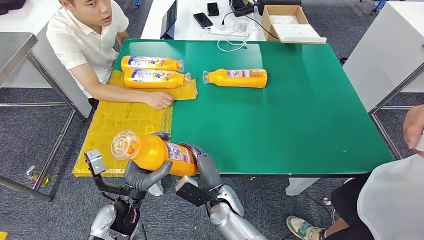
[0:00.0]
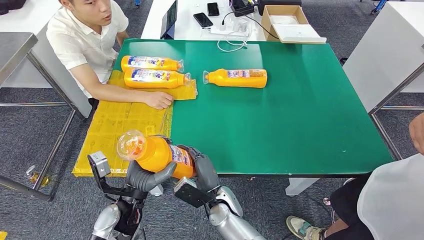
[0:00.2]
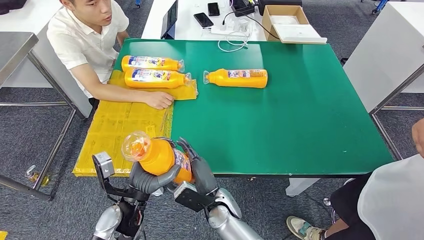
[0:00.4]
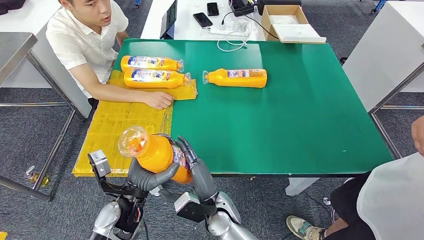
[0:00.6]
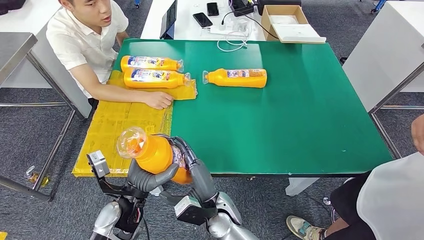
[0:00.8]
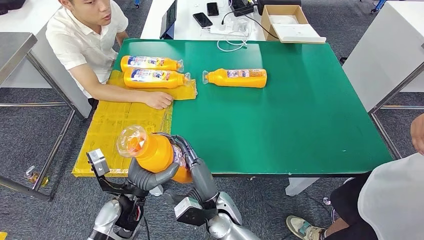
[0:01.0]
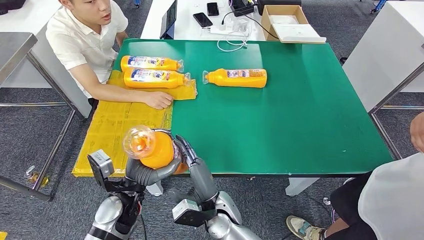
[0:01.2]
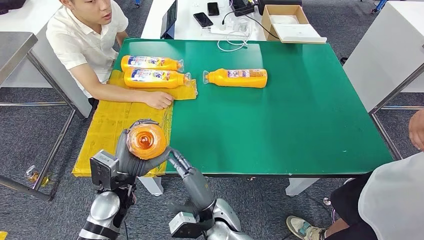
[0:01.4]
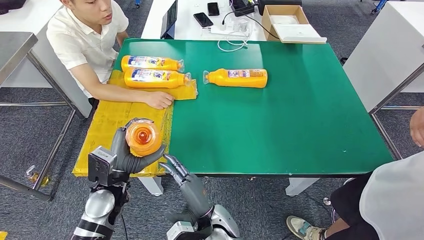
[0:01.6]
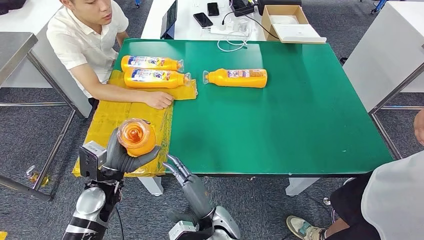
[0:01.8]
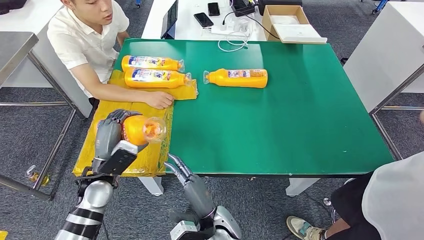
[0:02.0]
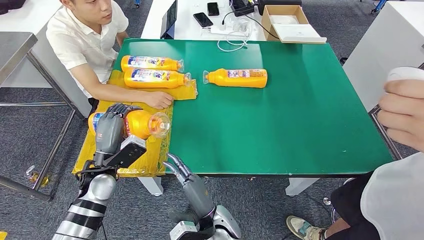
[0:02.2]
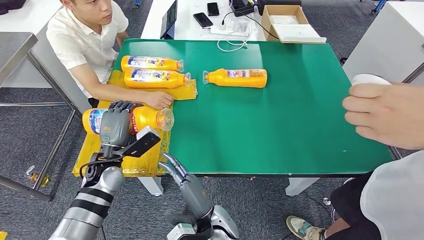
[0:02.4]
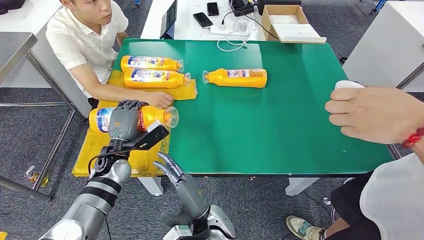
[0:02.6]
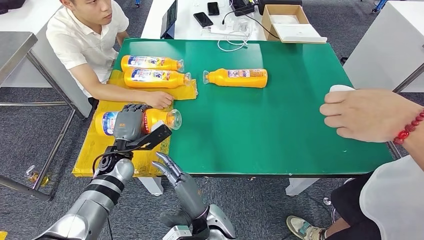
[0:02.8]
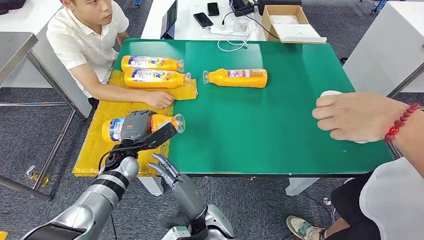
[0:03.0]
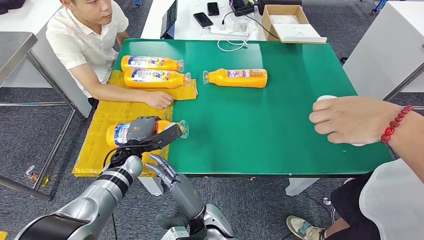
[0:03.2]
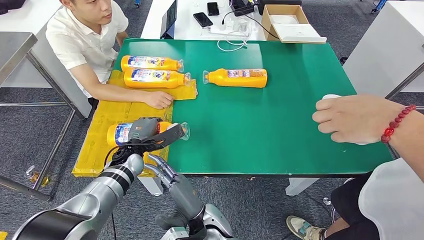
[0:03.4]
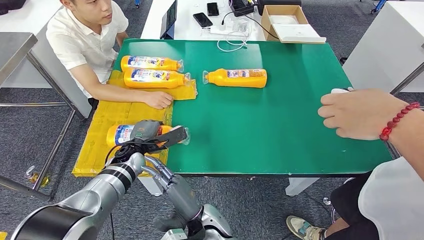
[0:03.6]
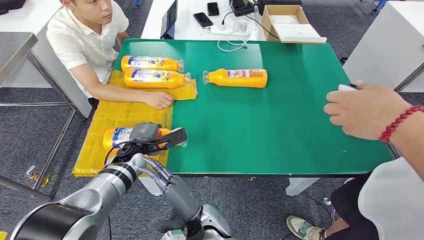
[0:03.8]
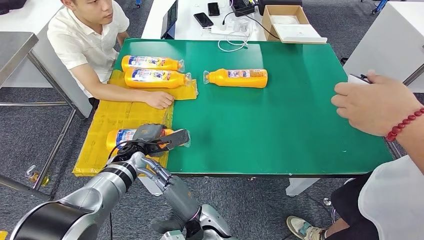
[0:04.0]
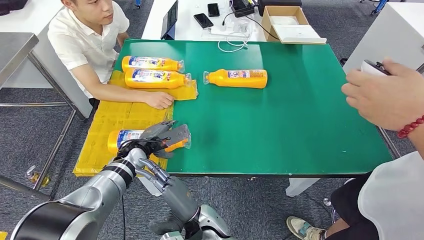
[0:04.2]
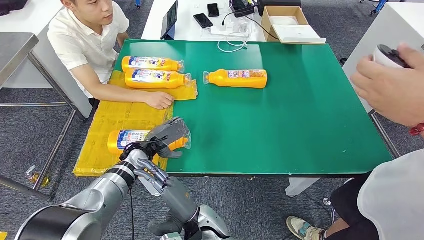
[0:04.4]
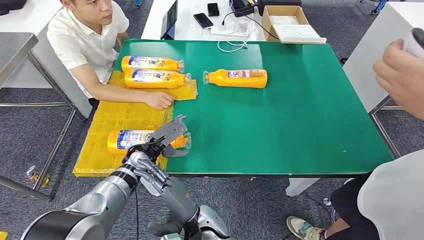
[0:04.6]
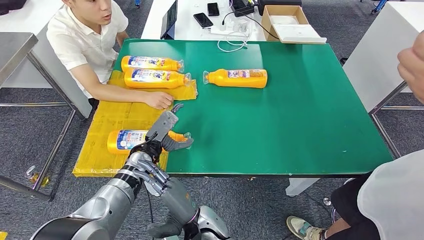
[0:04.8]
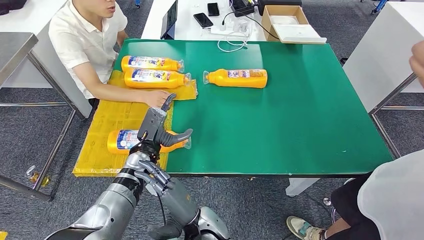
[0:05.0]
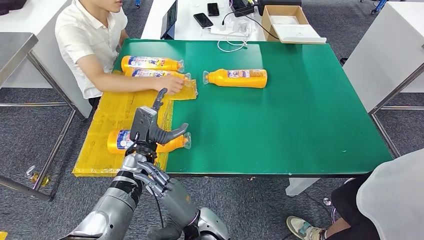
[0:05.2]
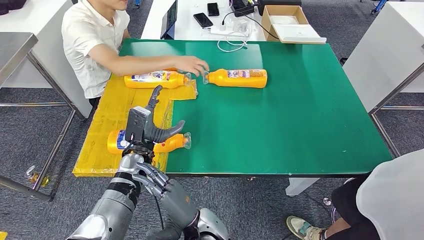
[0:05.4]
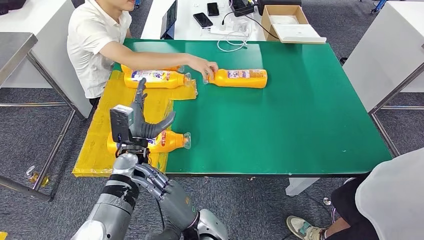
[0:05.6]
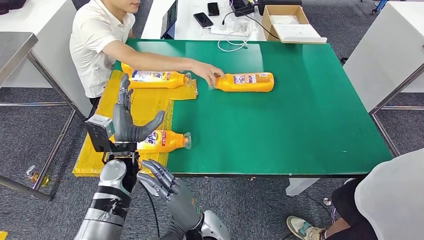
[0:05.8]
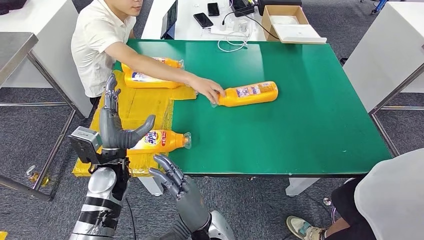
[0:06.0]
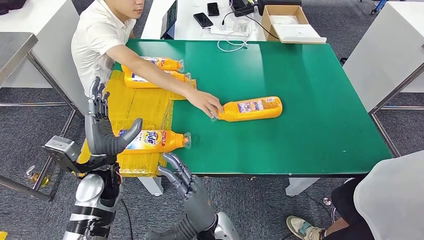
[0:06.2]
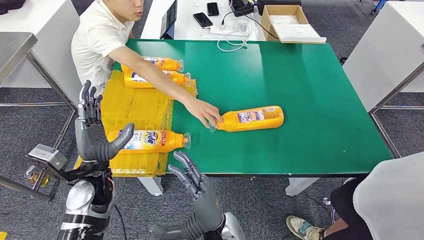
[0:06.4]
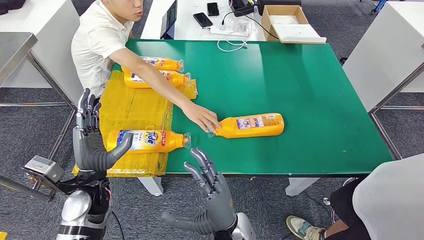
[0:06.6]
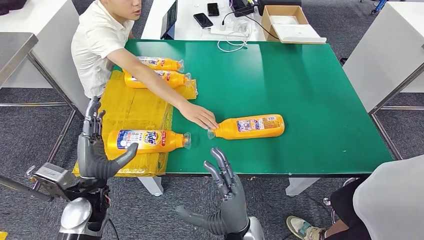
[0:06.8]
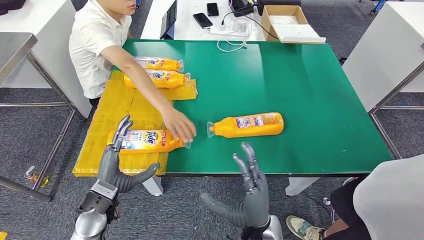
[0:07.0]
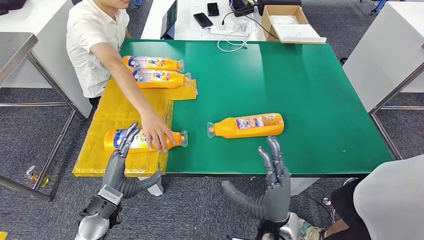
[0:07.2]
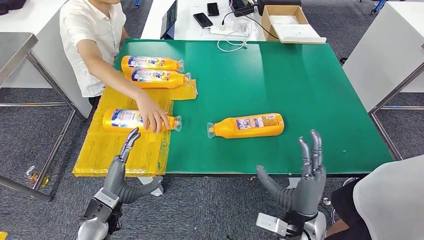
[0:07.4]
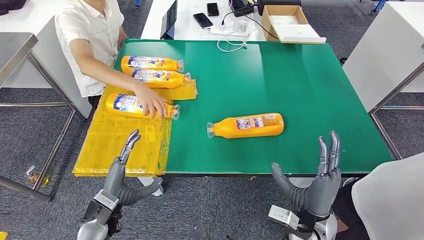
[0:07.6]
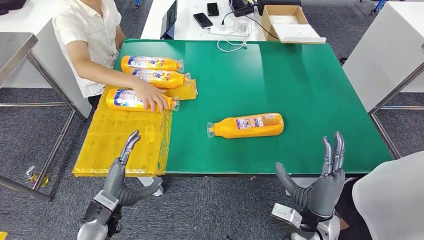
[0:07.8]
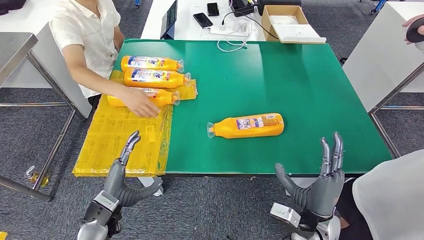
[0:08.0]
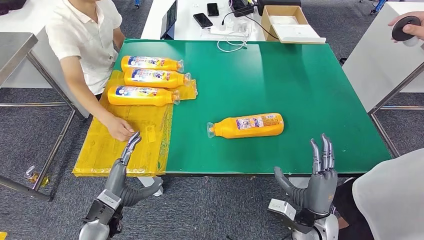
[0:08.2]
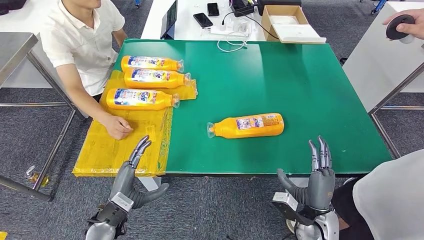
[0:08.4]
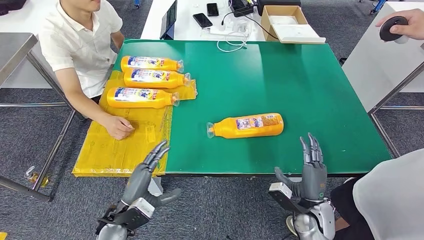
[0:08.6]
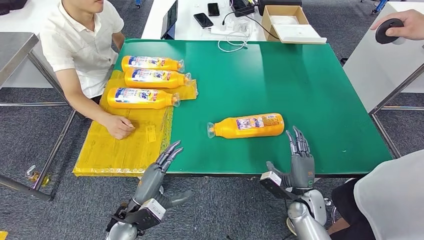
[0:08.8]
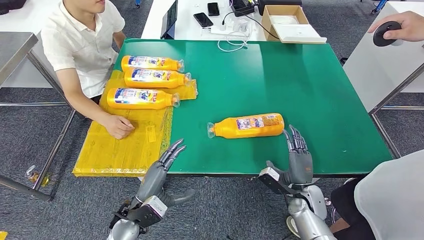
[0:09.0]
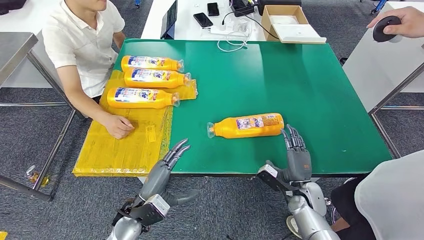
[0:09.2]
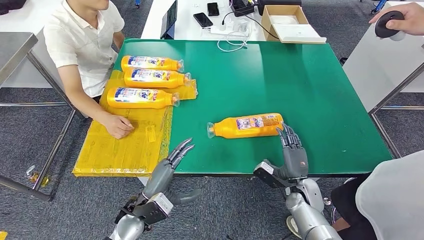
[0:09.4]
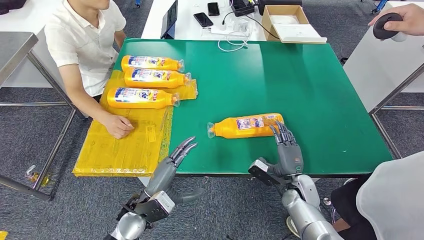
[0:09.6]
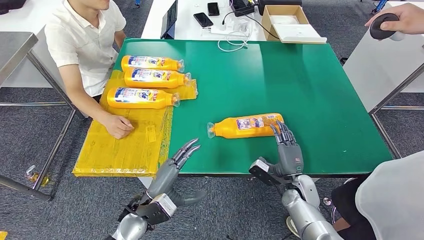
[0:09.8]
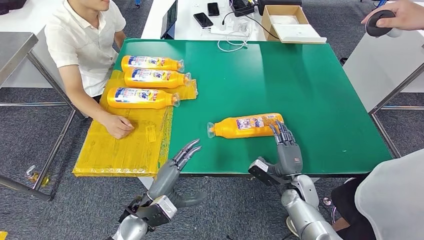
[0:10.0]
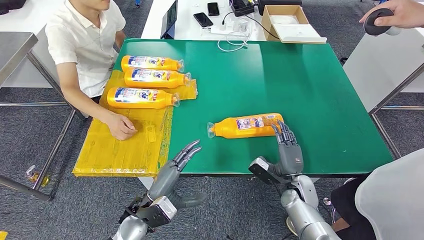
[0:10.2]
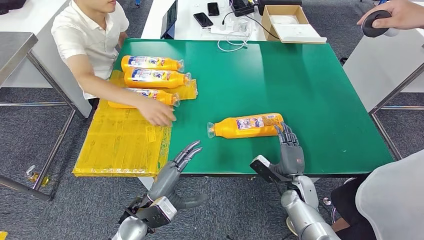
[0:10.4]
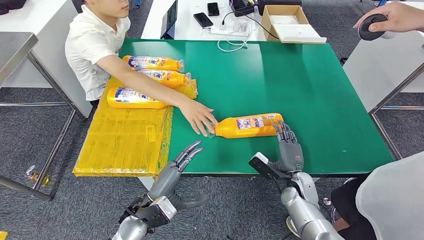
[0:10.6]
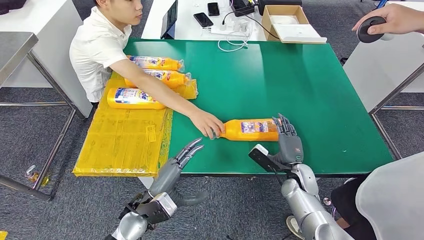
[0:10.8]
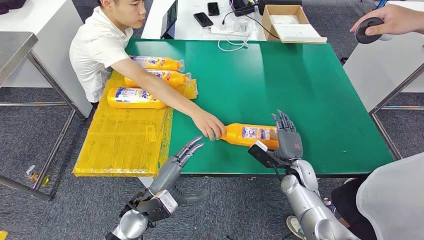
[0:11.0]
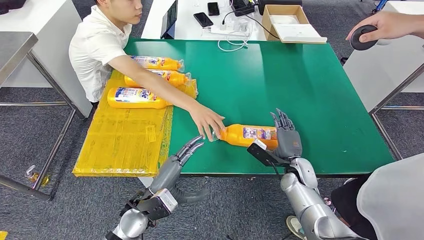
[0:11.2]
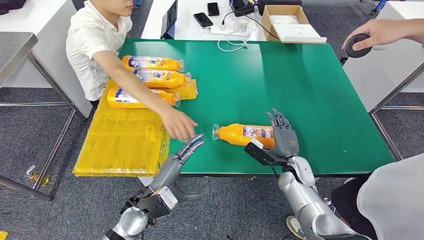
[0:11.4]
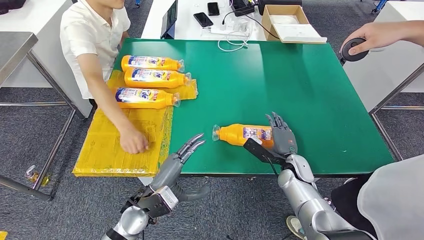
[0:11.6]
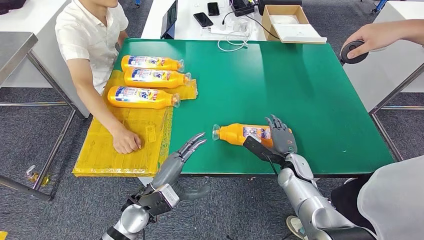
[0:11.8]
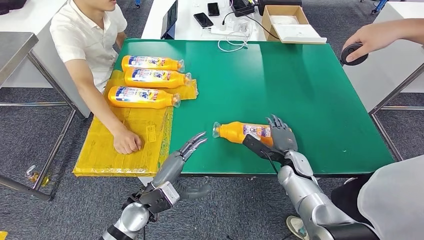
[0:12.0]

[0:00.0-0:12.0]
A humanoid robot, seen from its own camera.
Step, 0:00.0 to 0:05.6: Flip the bottle to face forward.
0:00.0 to 0:01.6: The right hand shifts roughly 5 cm backward, while the left hand moves some 5 cm.
0:01.6 to 0:03.0: The left hand heads forward, covering some 10 cm.
0:07.6 to 0:09.0: The left hand moves to the right, approximately 5 cm. The right hand shifts roughly 15 cm downward, forward and to the right.
0:09.0 to 0:10.4: The hands move only a little.
0:10.4 to 0:12.0: The right hand goes some 5 cm forward.

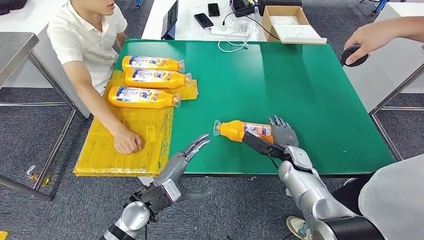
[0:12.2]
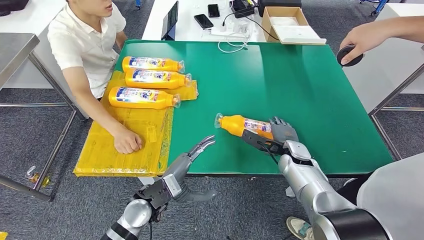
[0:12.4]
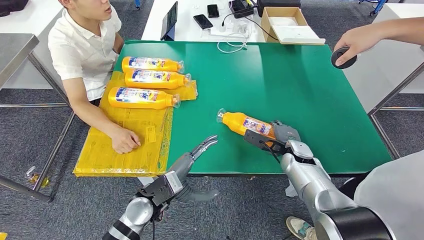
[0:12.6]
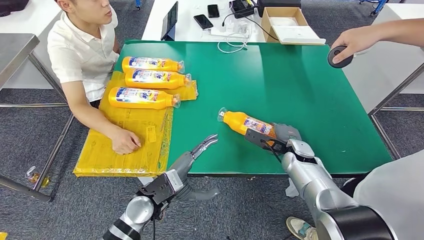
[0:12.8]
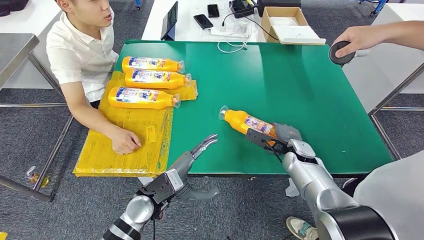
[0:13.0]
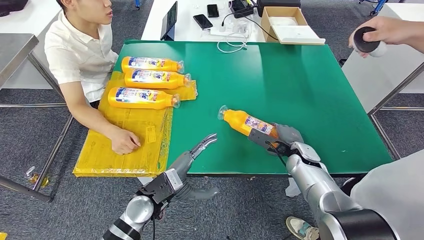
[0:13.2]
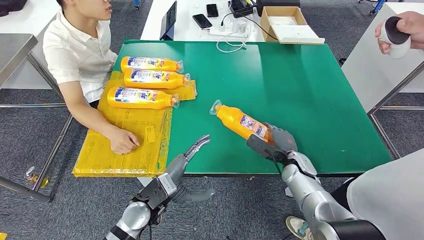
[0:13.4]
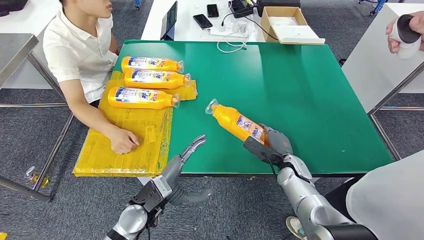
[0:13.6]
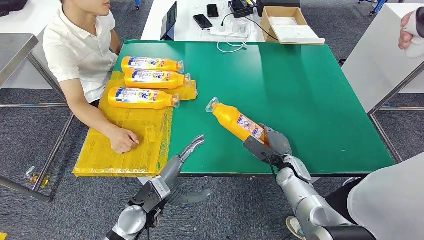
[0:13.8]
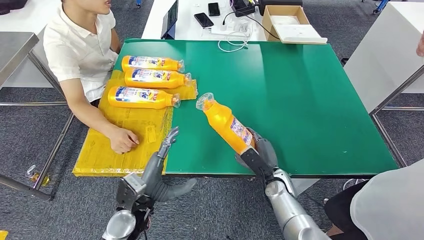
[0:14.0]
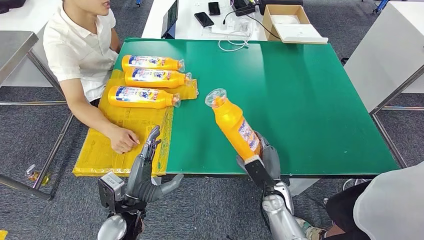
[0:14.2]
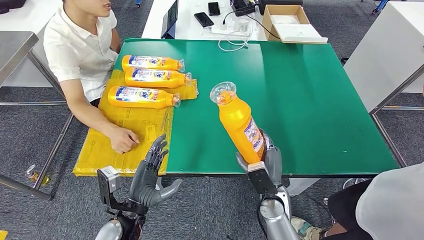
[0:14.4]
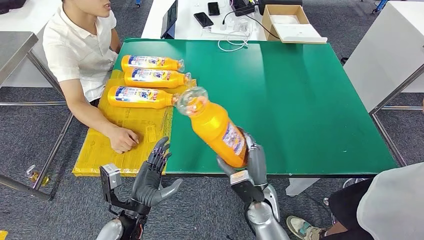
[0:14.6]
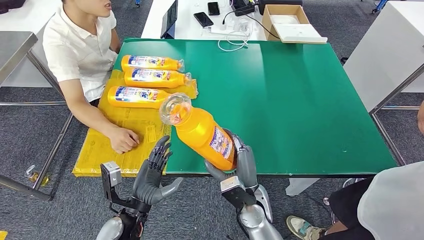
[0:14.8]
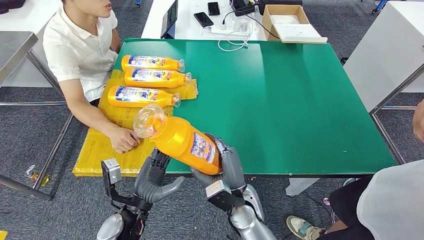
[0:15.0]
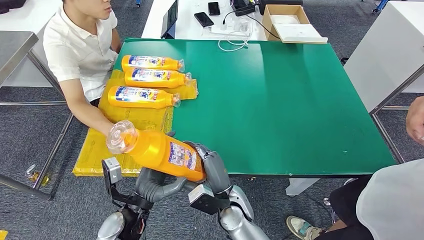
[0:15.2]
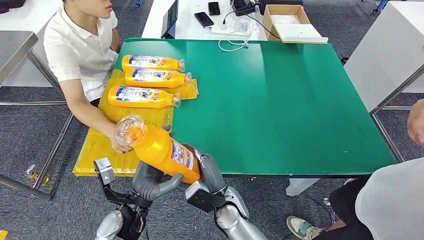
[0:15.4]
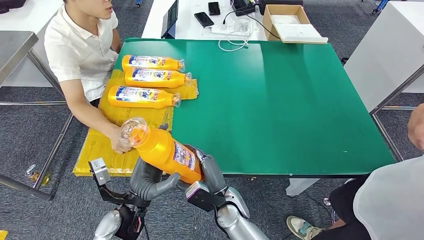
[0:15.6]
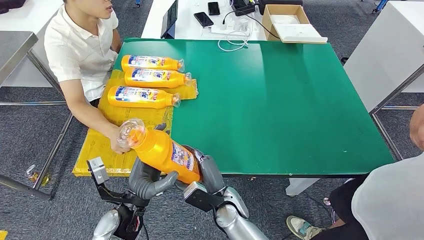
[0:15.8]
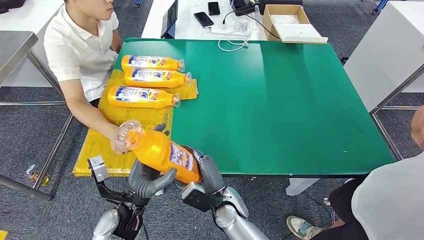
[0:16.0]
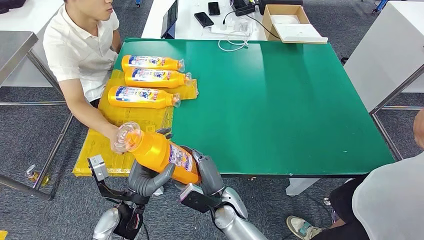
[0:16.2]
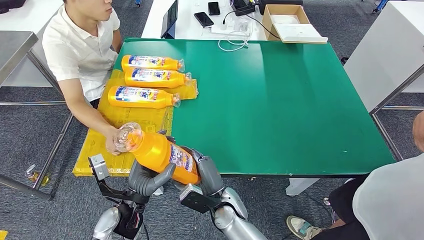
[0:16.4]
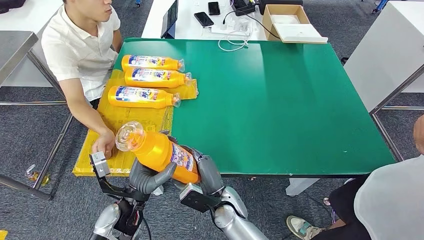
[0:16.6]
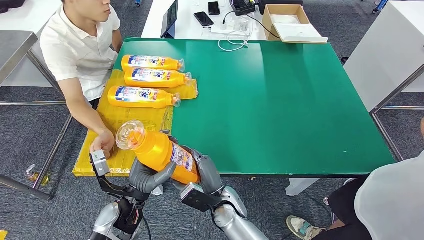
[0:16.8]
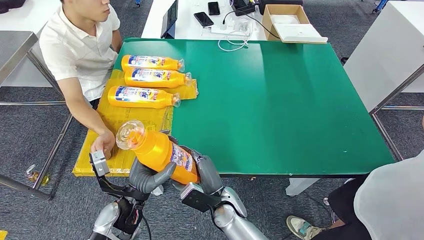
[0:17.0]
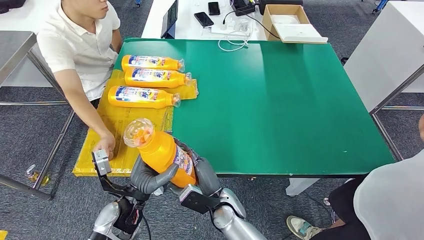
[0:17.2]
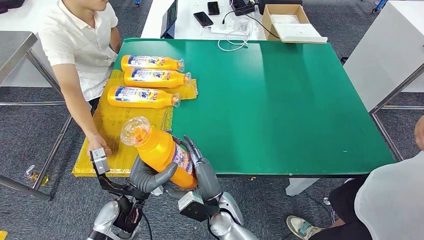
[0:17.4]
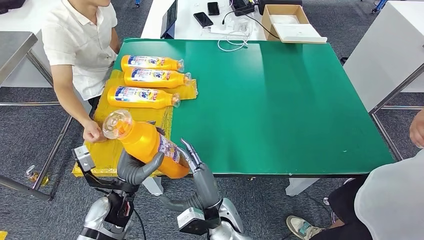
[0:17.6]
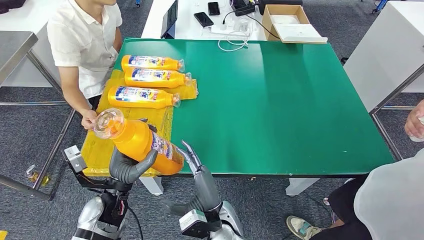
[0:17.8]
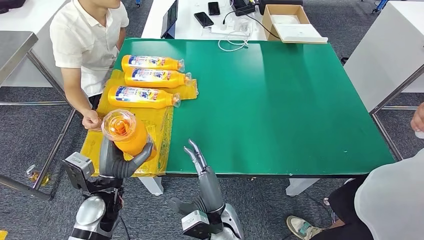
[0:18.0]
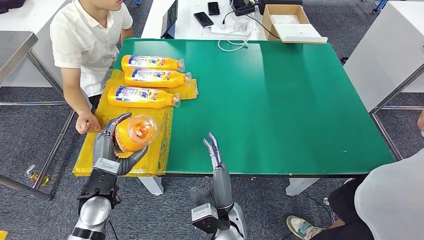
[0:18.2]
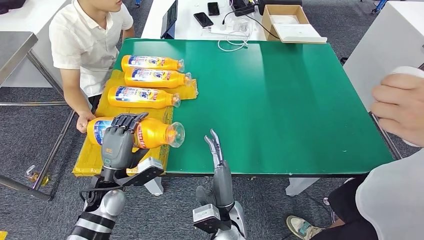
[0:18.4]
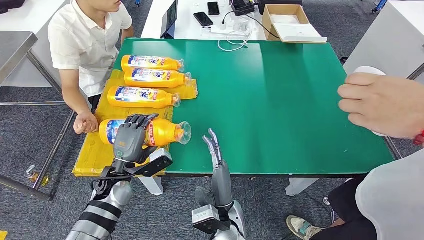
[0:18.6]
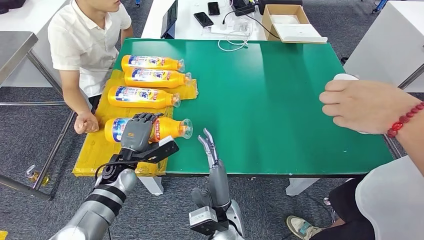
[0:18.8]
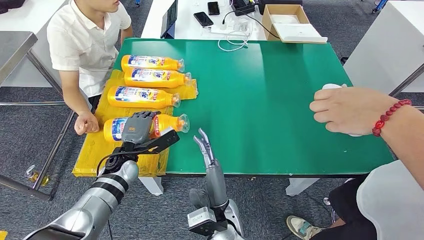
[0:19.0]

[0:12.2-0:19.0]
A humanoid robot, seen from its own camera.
0:15.0 to 0:16.2: The right hand changes place by approximately 5 cm.
0:16.2 to 0:17.6: The hands move only a little.
